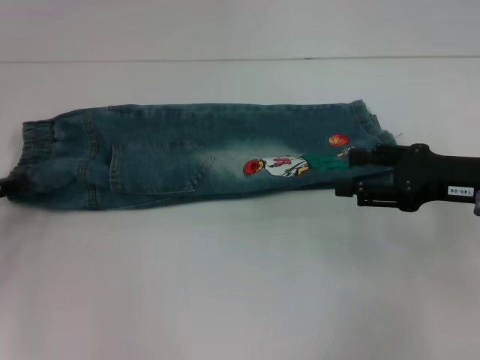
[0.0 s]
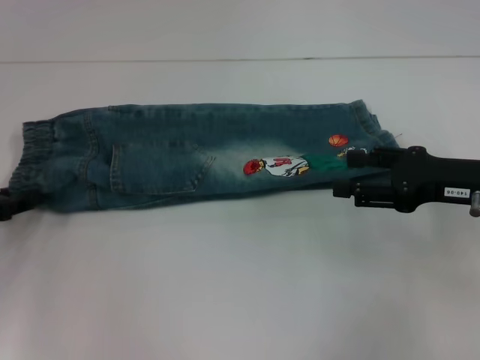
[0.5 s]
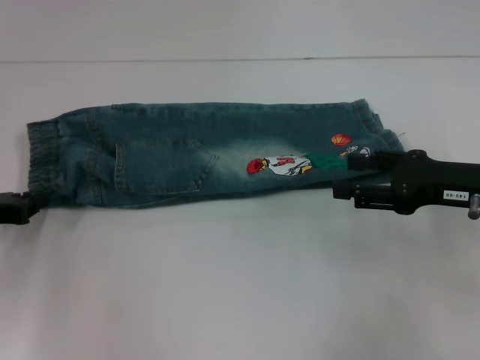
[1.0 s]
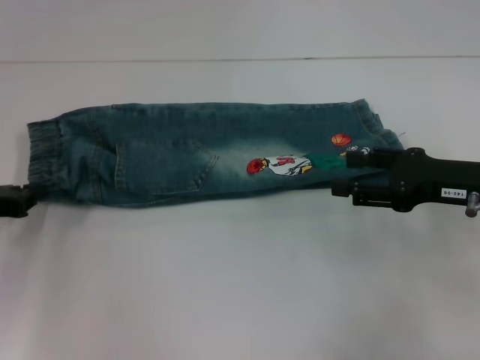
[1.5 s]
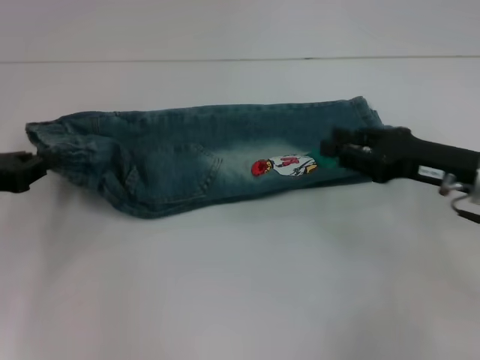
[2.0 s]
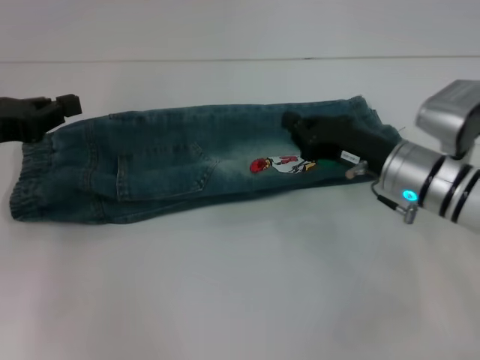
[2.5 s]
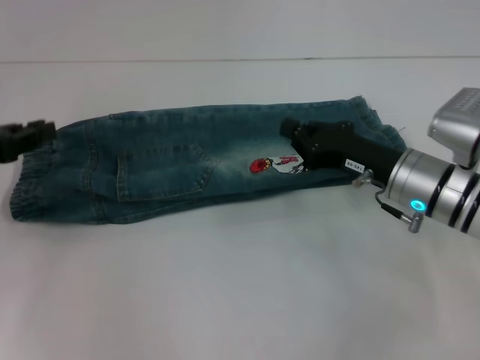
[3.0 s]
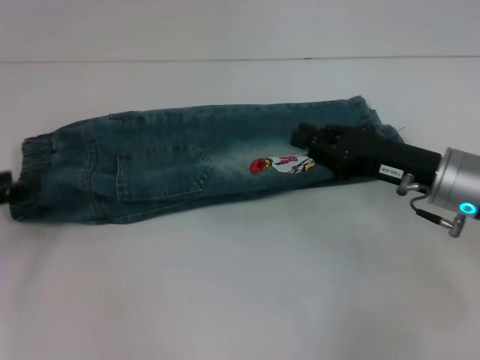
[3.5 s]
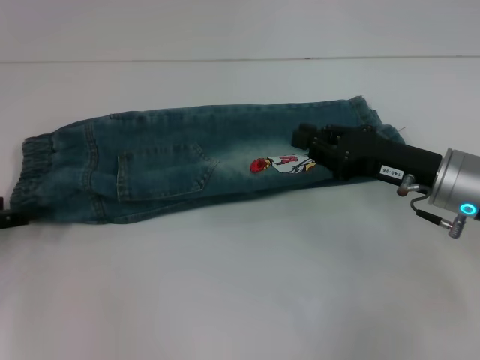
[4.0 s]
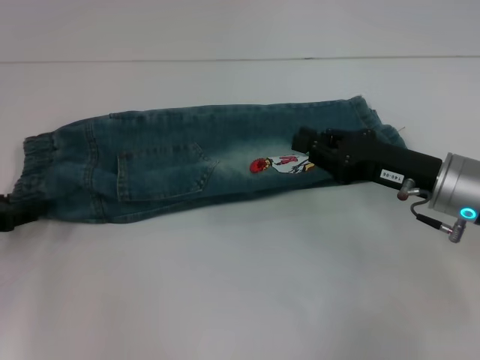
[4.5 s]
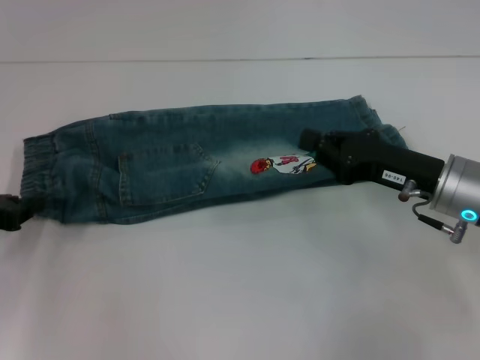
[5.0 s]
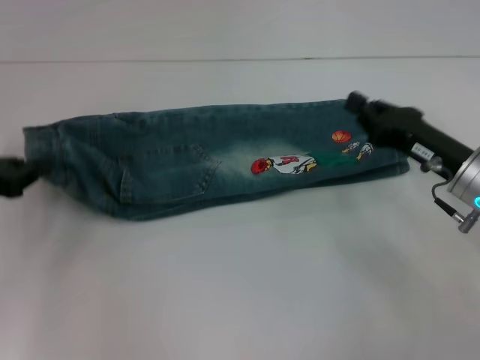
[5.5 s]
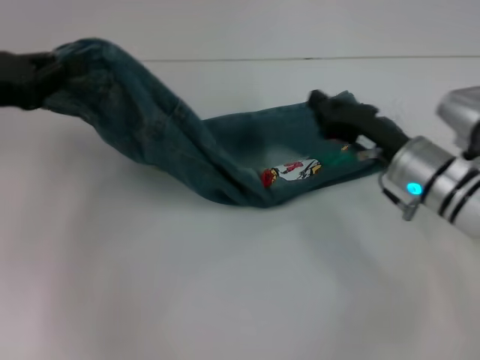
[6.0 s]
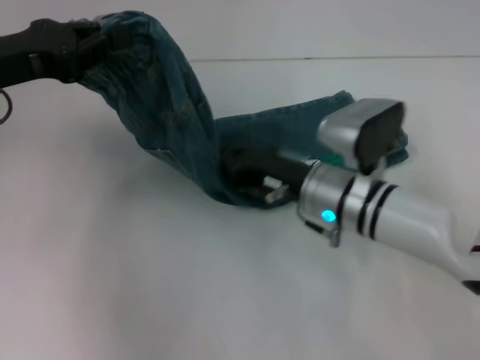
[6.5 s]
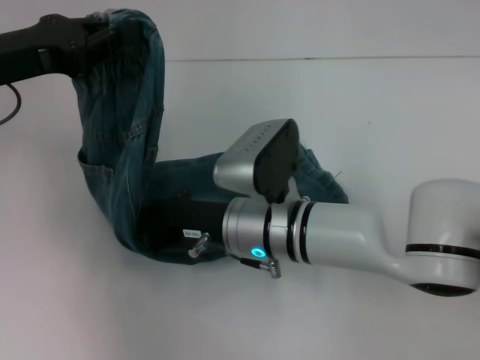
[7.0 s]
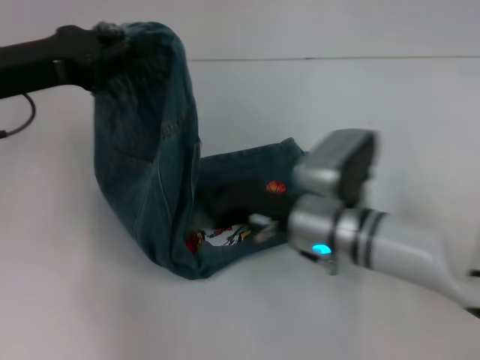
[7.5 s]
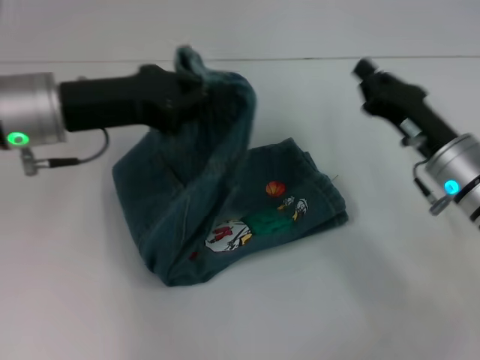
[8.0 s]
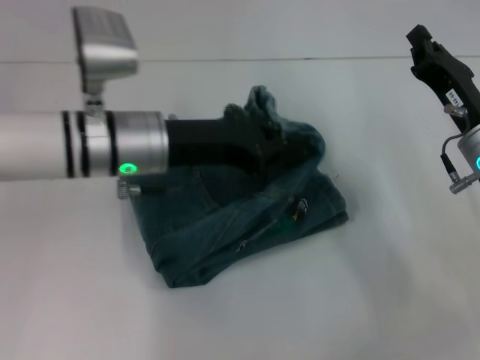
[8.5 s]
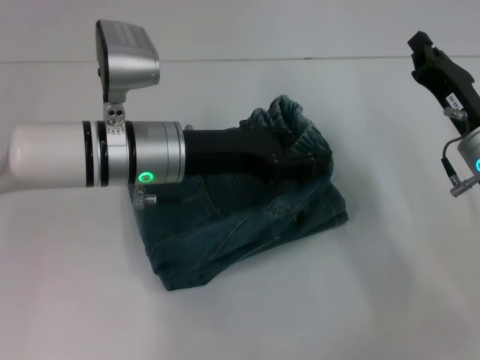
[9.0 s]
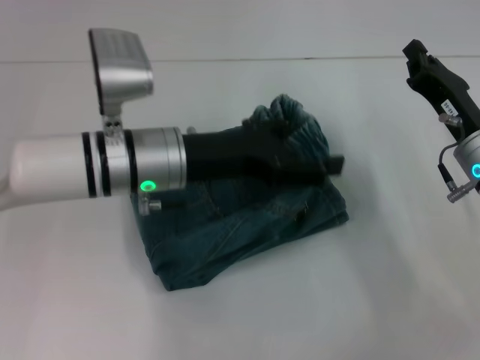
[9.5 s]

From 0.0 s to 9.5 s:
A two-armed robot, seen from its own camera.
Step, from 0.0 s to 4.5 s: Hold the waistband with your left hand.
Step, from 5.5 s to 7.0 s: Press the middle of the pants with your right hand.
From 0.0 s to 2.0 s: The left gripper closes its fingers.
From 2.0 s to 4.0 s: The right gripper closes up, while the left gripper opens up.
From 4.0 s to 5.5 s: The left gripper closes.
From 5.5 s to 7.5 s: The left gripper travels to the right and upward by approximately 10 cm, while the right gripper heads to the left, covering about 15 cm.
From 7.5 s to 9.5 s: The right gripper shifts some 15 cm to the right, while the left gripper is displaced to the right and downward by approximately 15 cm, and opens up.

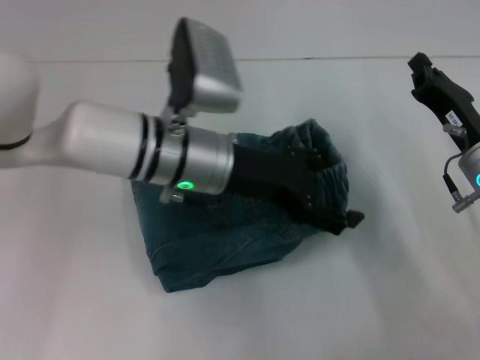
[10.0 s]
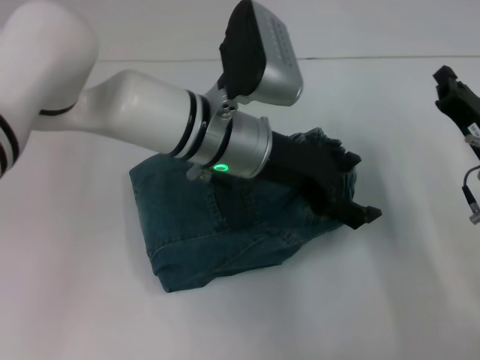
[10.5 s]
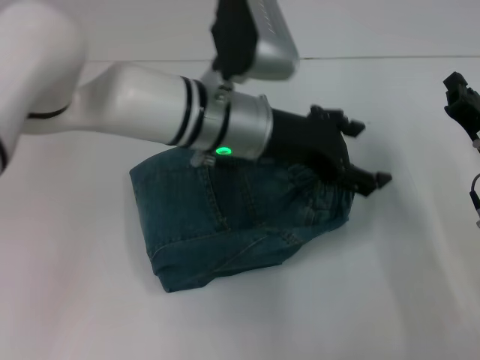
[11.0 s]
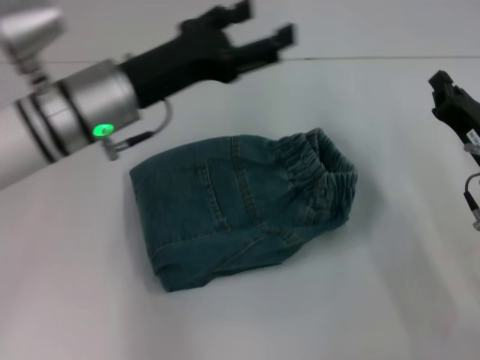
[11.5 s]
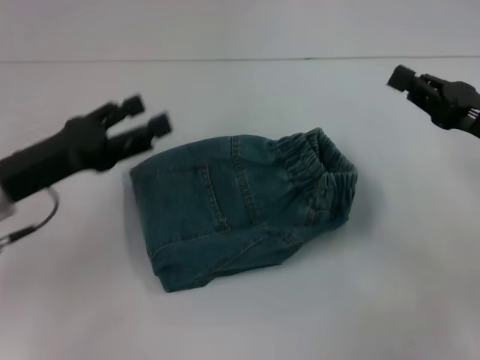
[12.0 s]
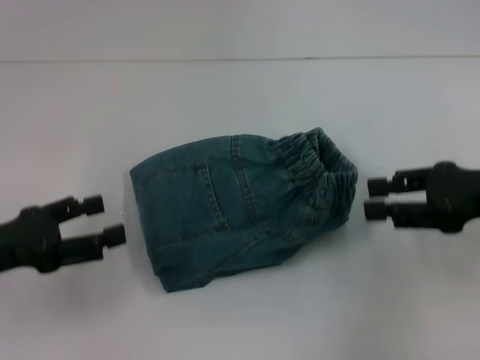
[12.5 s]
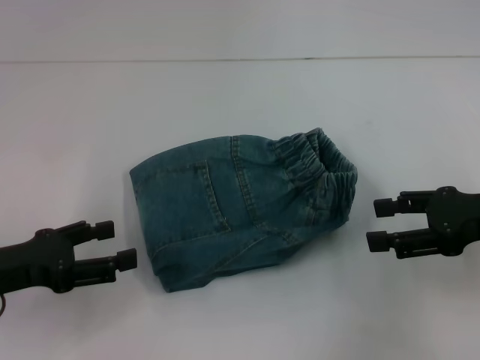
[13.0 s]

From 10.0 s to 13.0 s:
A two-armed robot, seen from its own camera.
From 10.0 s to 11.5 s: The left gripper goes approximately 5 cm to the left.
From 11.5 s to 13.0 s: The right gripper goes roughly 10 cm upward, and opens its fingers. The left gripper is displaced to the left, backward and downward by about 20 cm.

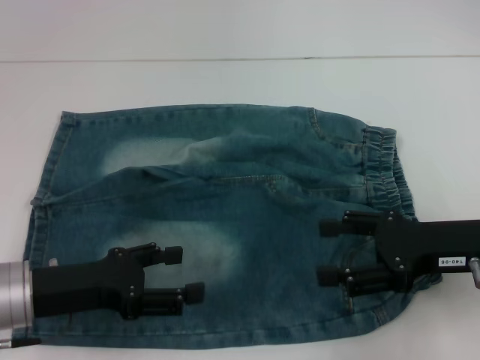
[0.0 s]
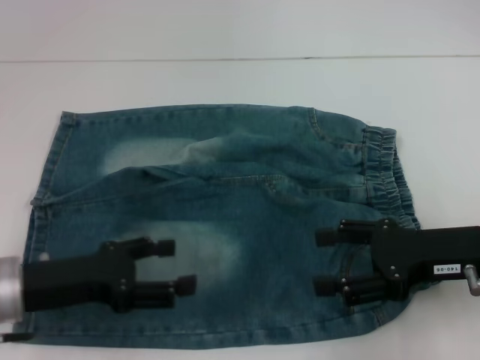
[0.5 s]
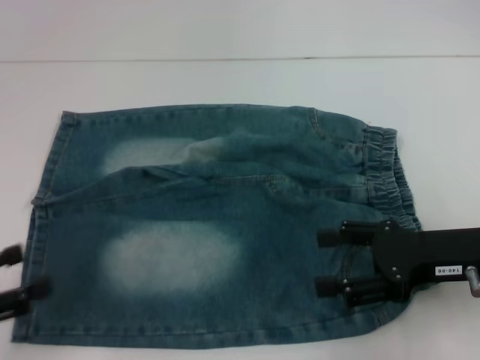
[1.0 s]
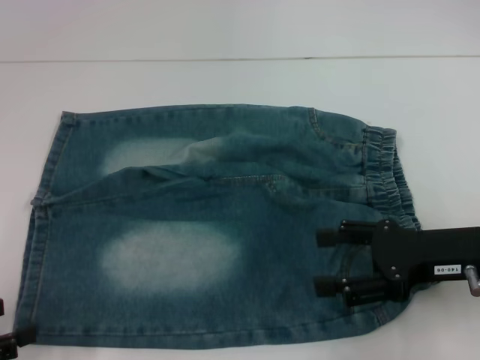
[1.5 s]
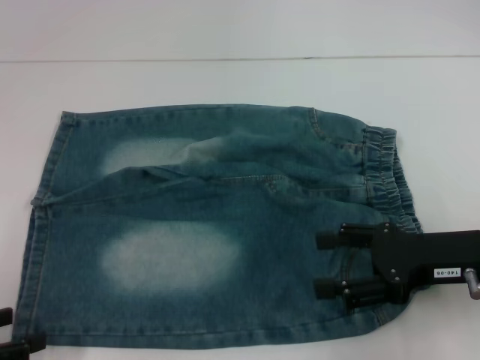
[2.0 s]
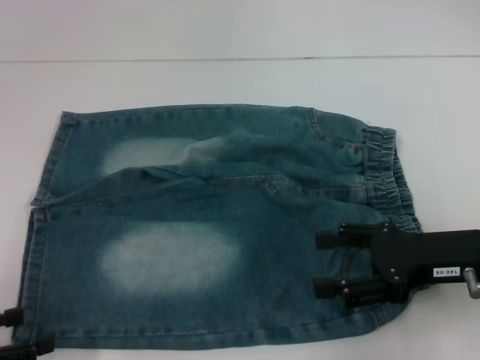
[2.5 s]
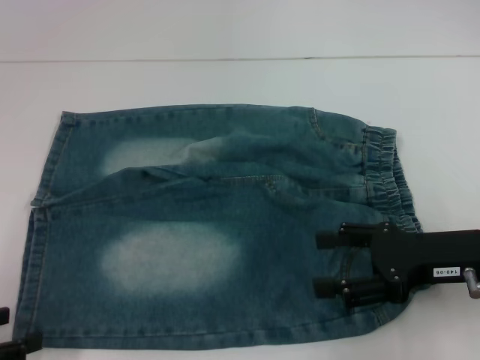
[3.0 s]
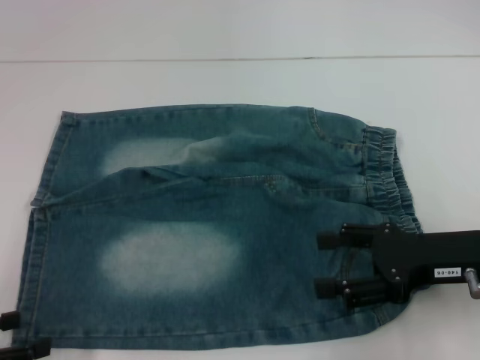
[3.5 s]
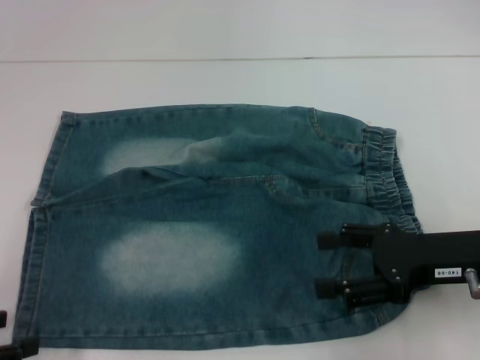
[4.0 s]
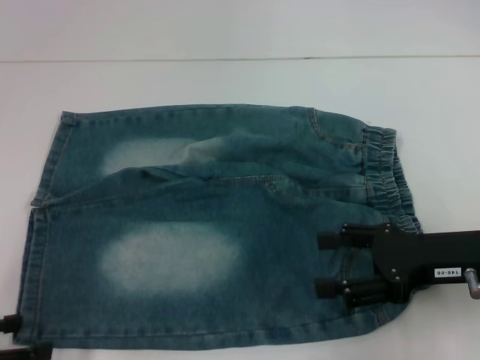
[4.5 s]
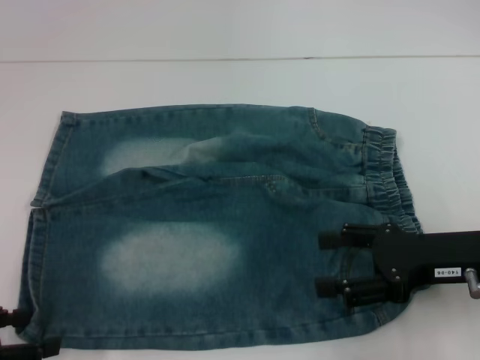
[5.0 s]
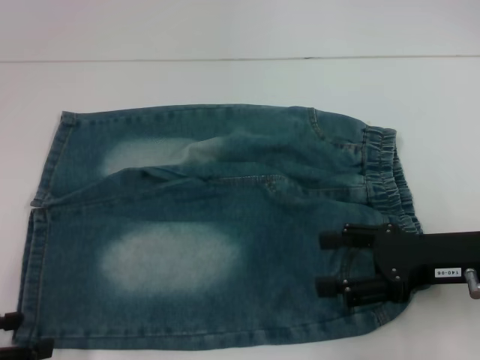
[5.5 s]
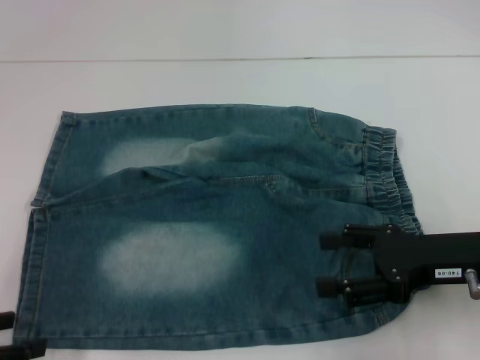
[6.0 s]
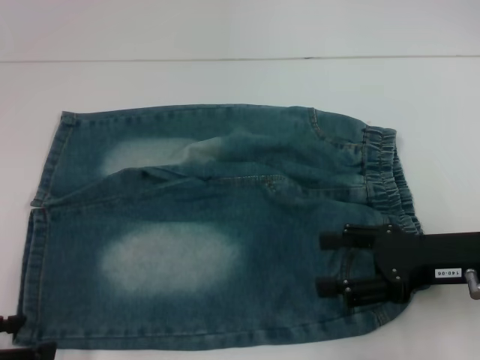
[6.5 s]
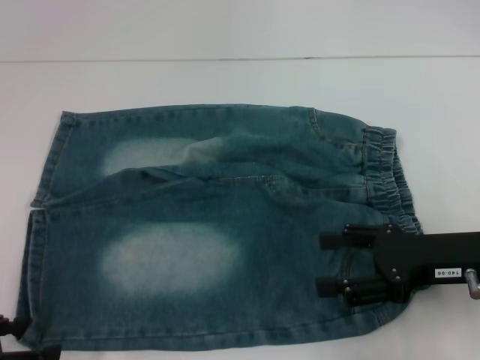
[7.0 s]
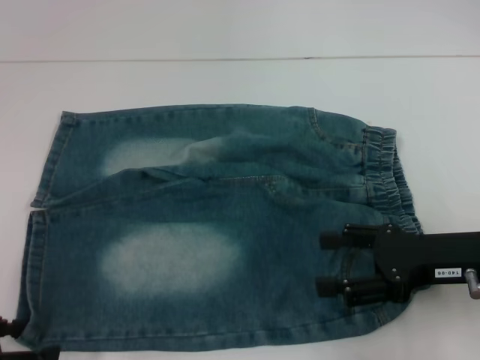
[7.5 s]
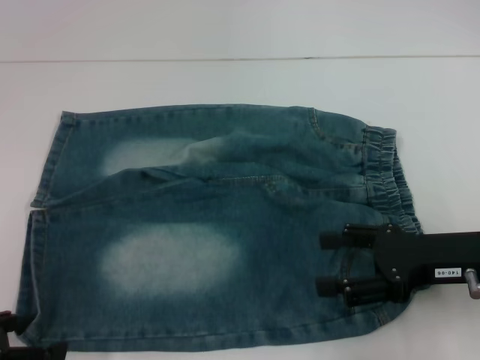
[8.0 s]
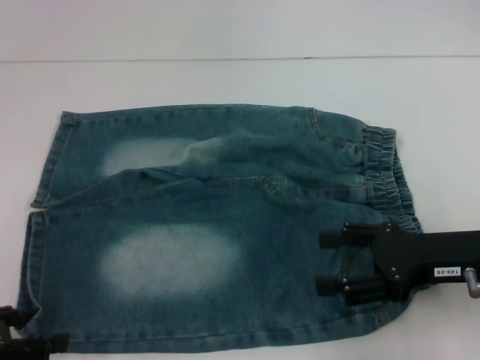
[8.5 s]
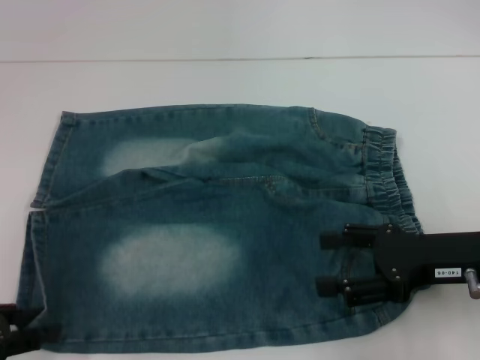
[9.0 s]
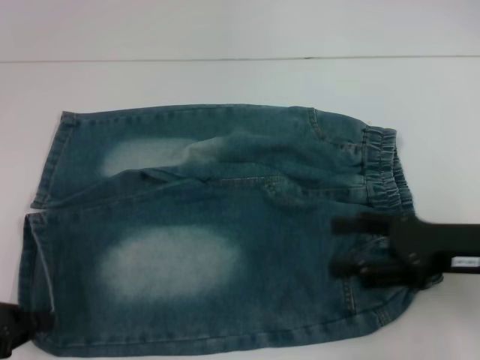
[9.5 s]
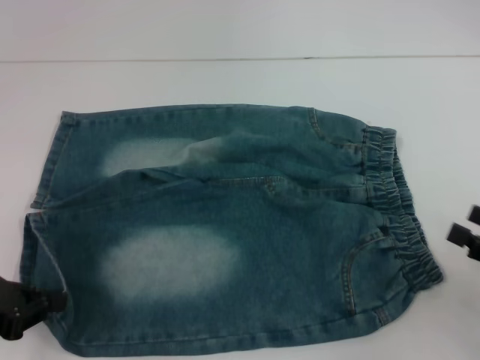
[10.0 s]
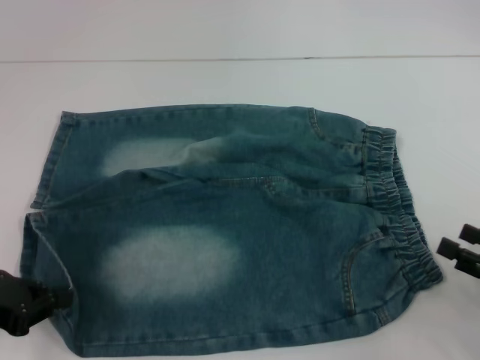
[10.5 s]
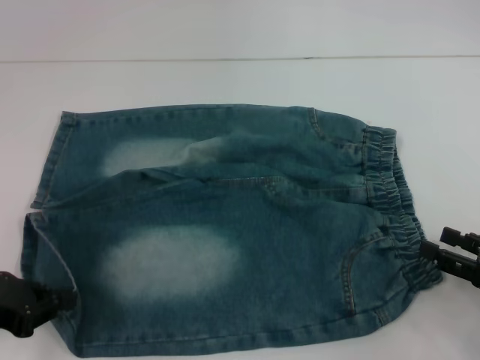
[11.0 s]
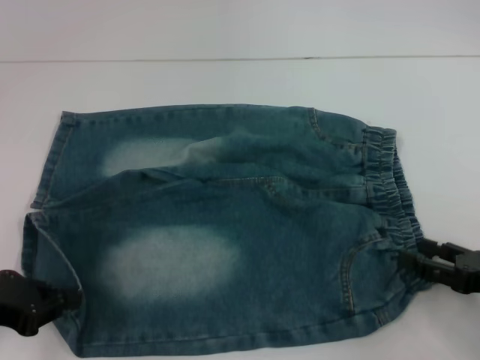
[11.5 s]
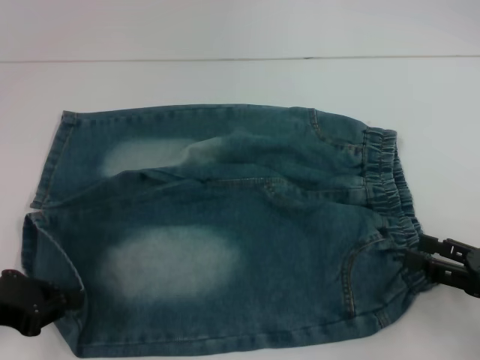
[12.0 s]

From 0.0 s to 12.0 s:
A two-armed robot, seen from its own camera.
Step, from 0.0 s to 9.0 s: Grab the lower left pant leg with your left hand.
From 0.0 s to 2.0 s: The left gripper is displaced to the left and backward by some 15 cm.
From 6.0 s to 8.0 s: The grippers make only small movements.
From 8.0 s to 10.0 s: The left gripper closes; the right gripper moves to the right and backward, about 15 cm.
From 10.0 s to 12.0 s: There are only small adjustments of the grippers.

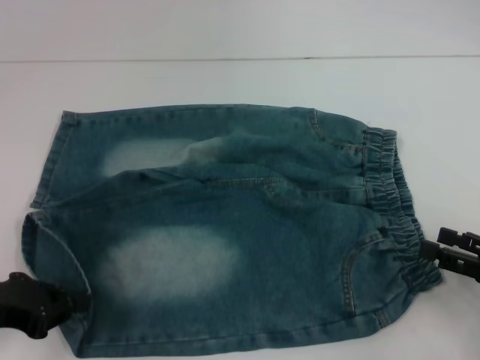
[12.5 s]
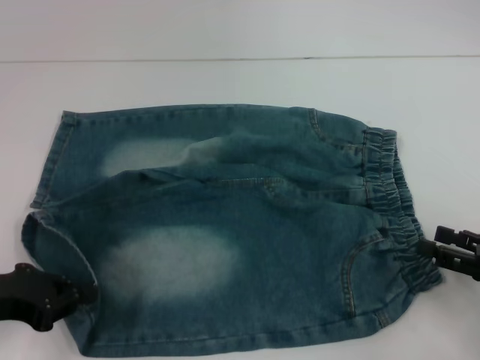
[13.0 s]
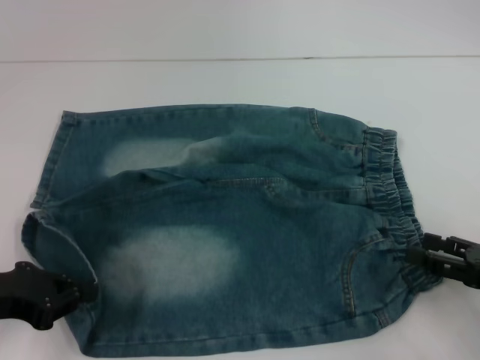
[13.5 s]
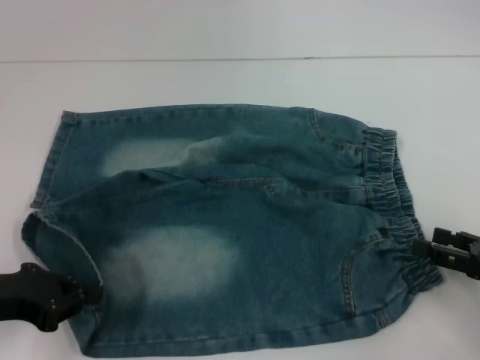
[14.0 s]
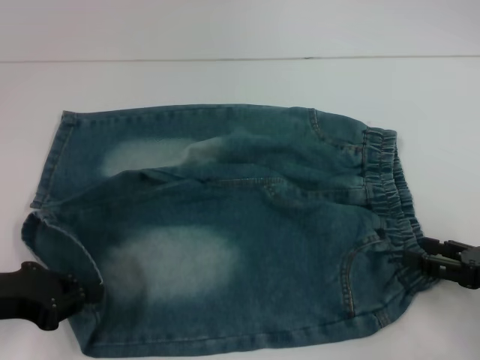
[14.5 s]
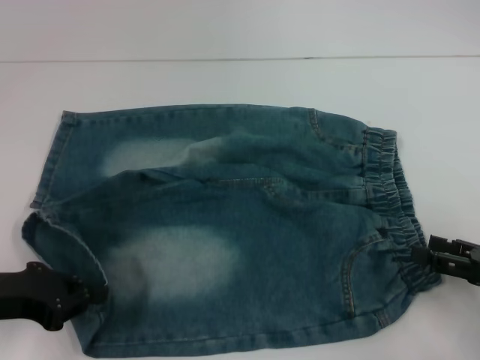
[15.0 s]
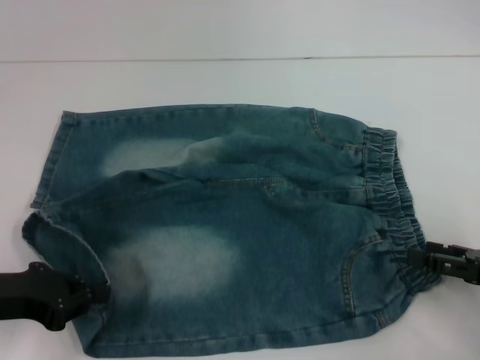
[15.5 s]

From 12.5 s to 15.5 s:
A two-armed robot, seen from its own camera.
From 12.5 s to 14.0 s: Both grippers stay put.
From 14.0 s to 15.5 s: The grippers stay close to where they were, moving slightly.
